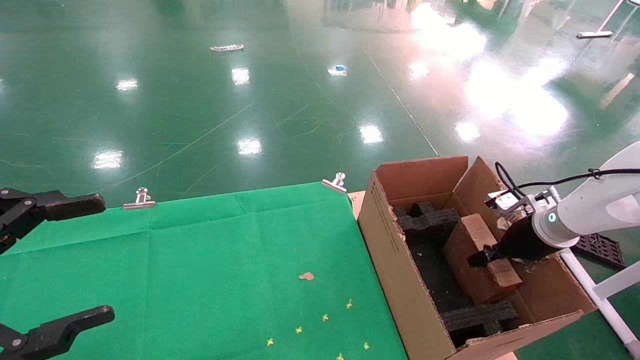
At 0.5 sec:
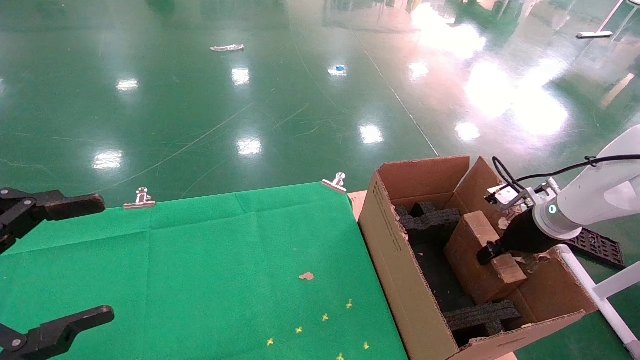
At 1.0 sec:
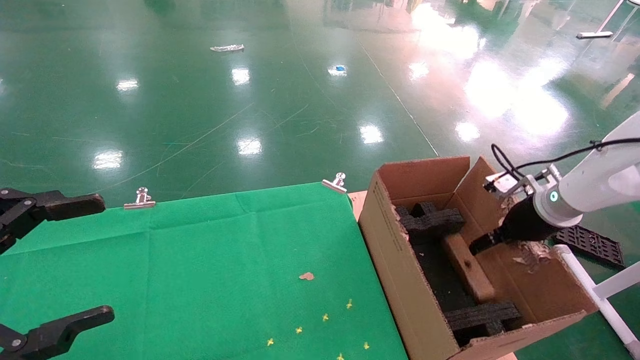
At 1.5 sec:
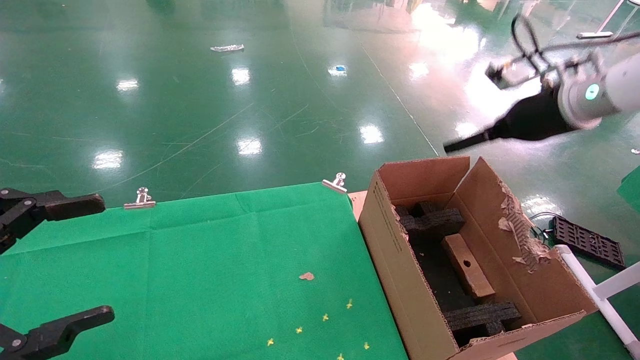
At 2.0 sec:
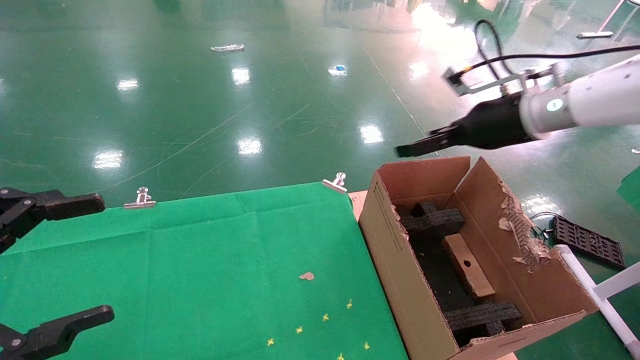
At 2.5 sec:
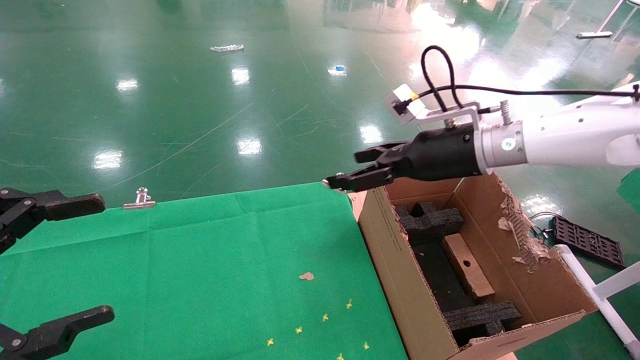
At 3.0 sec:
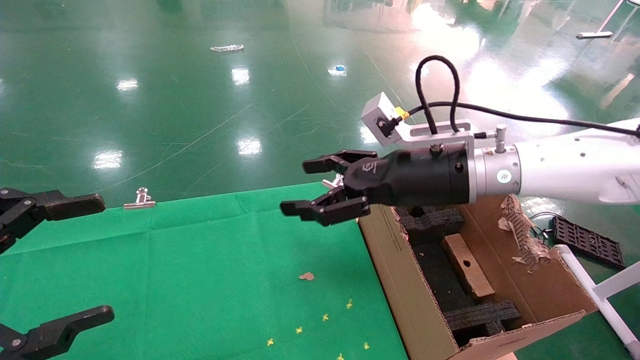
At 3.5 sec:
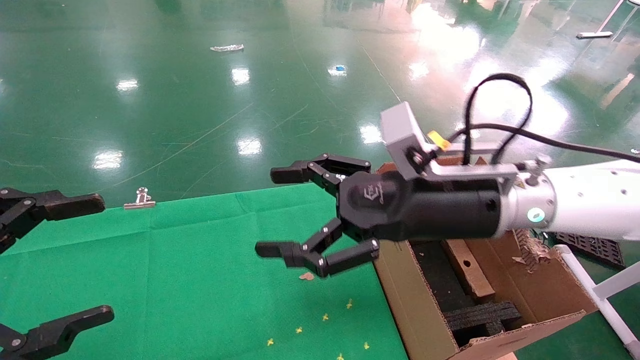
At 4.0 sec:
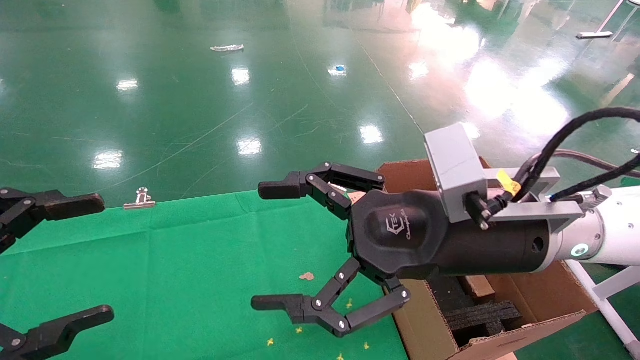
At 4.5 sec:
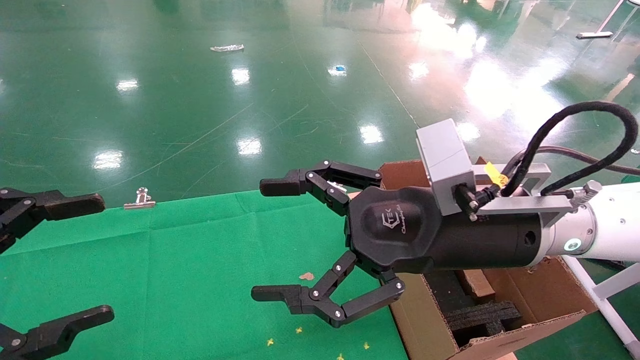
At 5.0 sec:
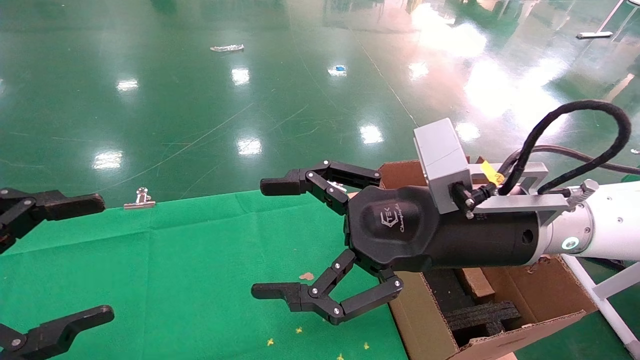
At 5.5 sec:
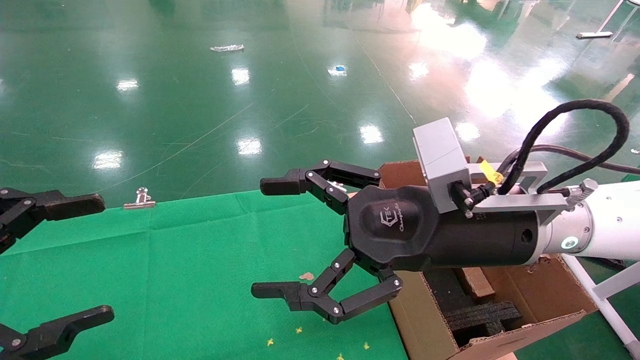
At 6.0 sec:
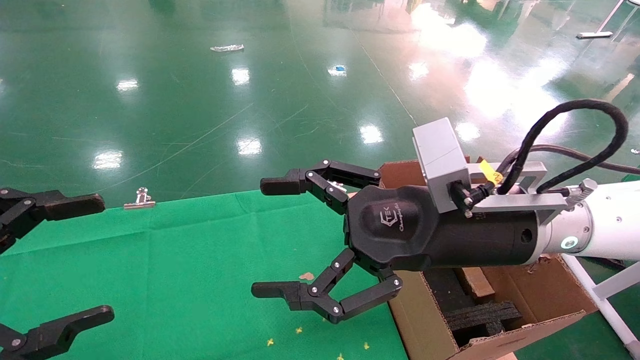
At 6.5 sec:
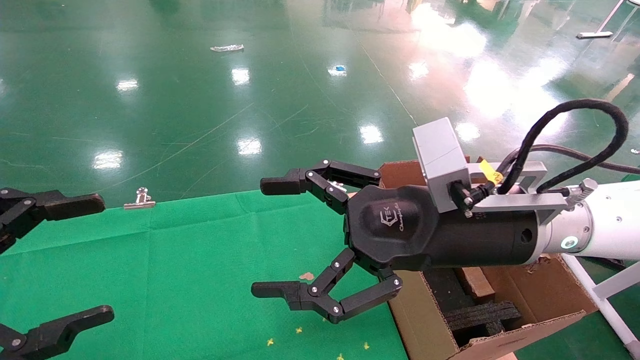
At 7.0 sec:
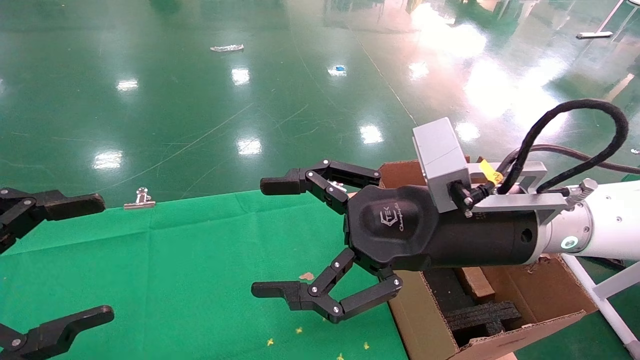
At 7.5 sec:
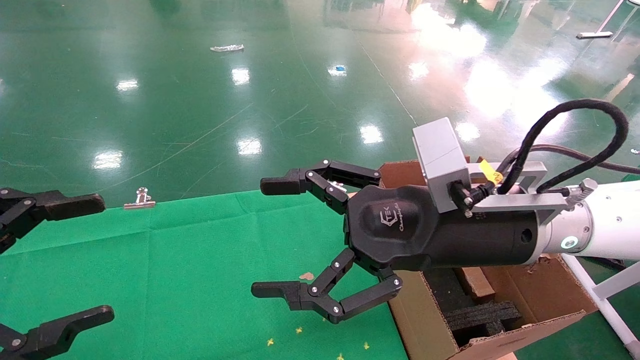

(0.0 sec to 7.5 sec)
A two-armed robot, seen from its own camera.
Task of the whole recording: using a robotic arm to pick up a cardboard box and palace it the carton.
0.0 sec - 2.0 sec: The right gripper shifts about 20 cm upward and to the left, and opens.
2.0 sec - 4.0 sec: The right gripper heads backward and to the left, covering some 20 cm.
4.0 sec - 7.5 sec: Both grippers stay about where they are.
